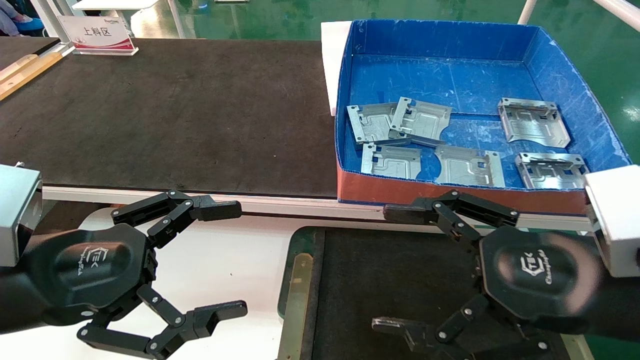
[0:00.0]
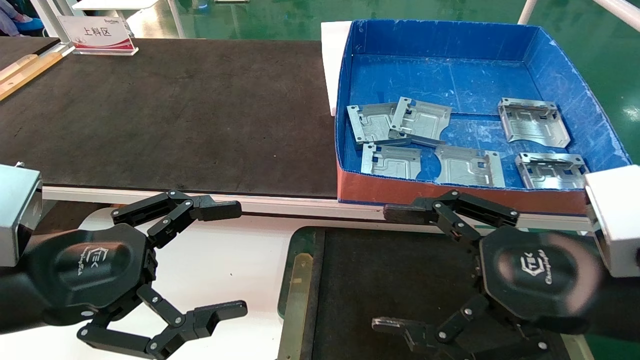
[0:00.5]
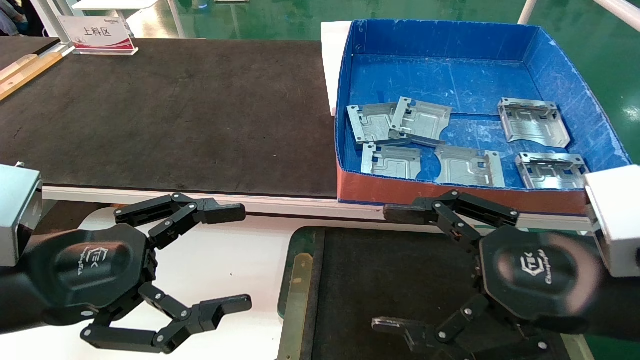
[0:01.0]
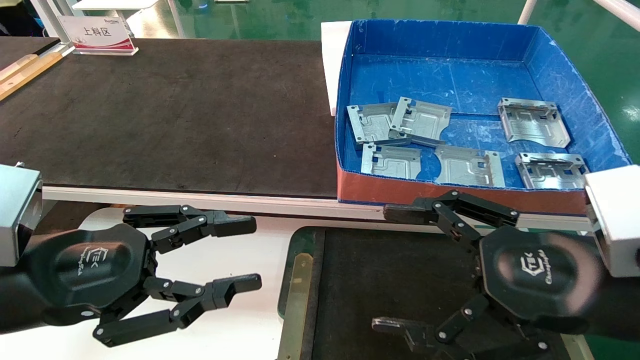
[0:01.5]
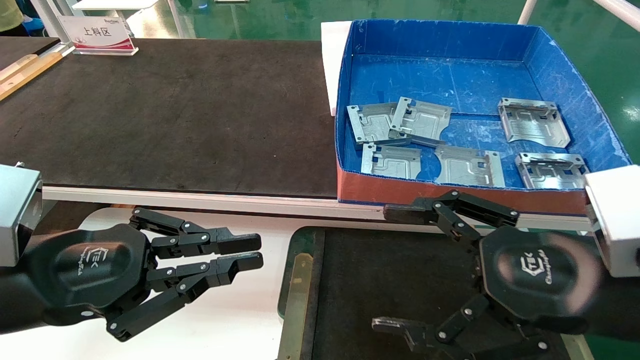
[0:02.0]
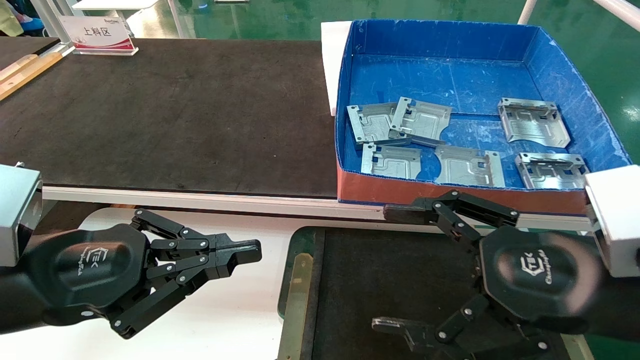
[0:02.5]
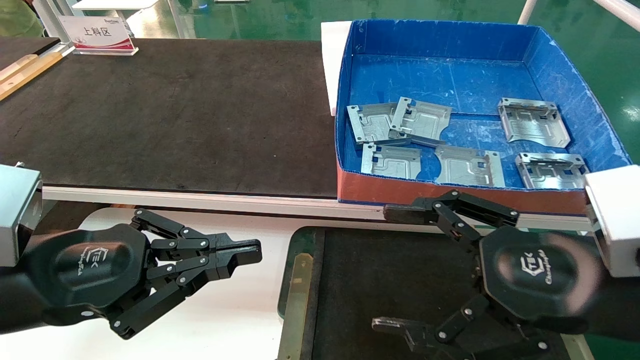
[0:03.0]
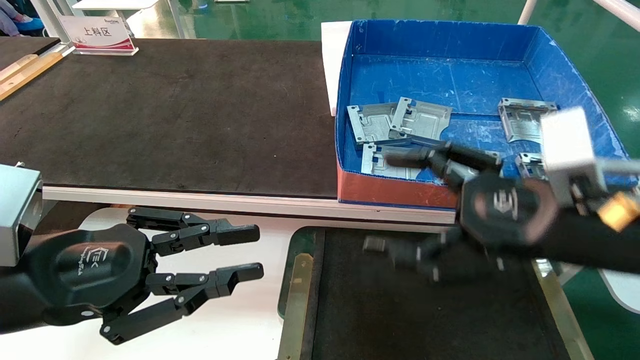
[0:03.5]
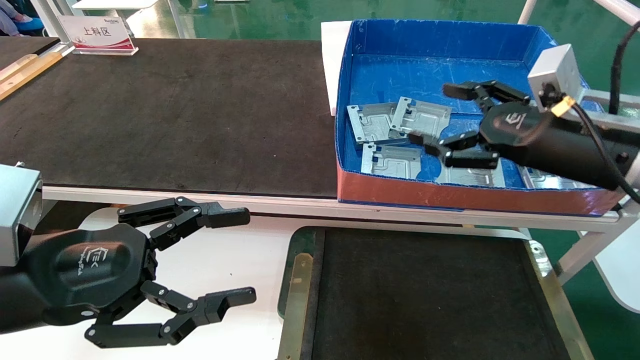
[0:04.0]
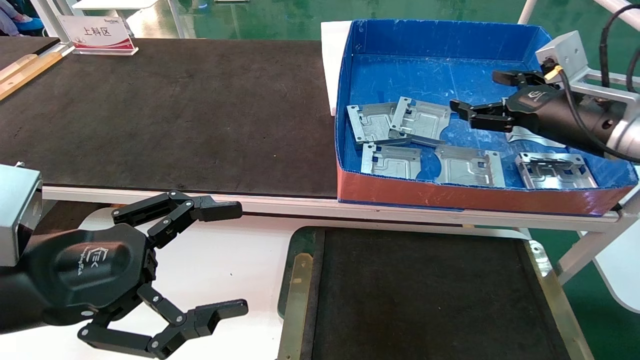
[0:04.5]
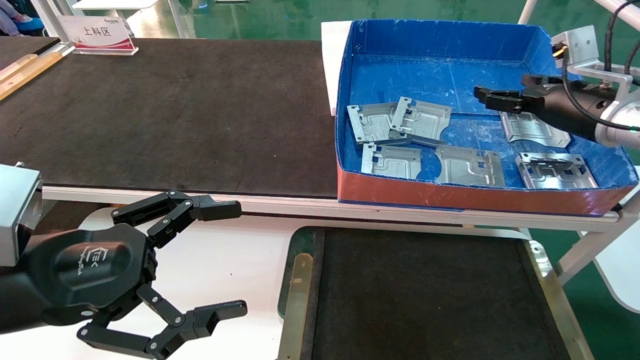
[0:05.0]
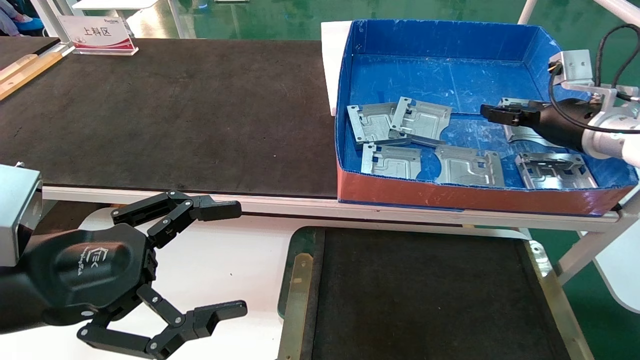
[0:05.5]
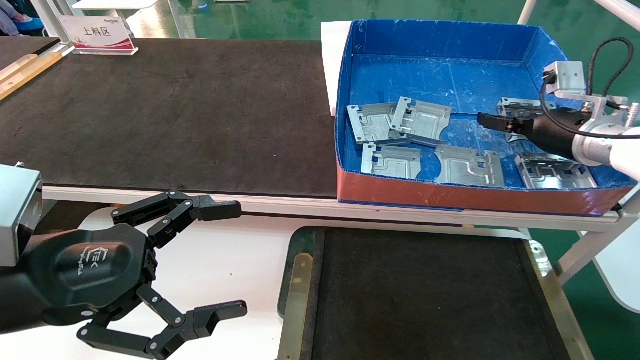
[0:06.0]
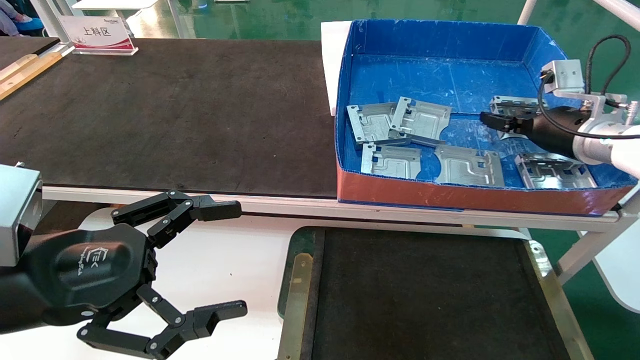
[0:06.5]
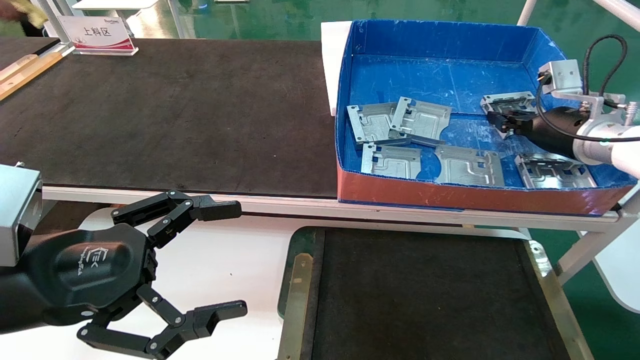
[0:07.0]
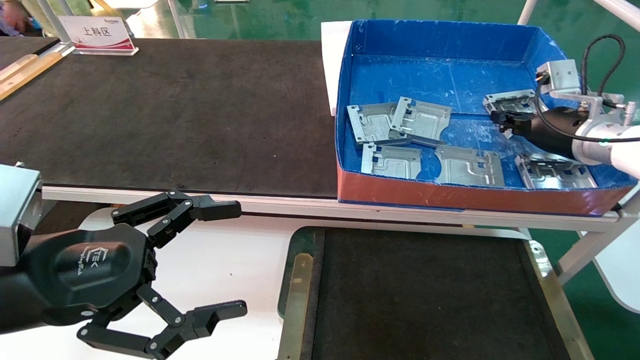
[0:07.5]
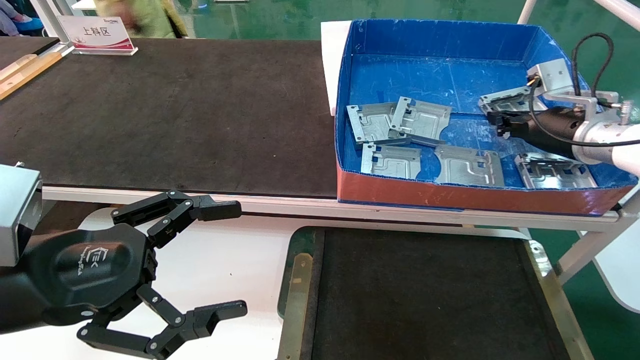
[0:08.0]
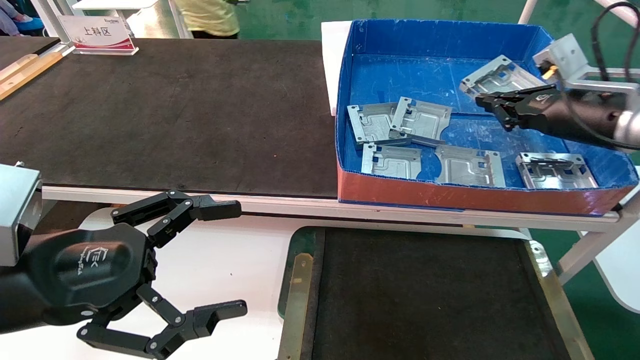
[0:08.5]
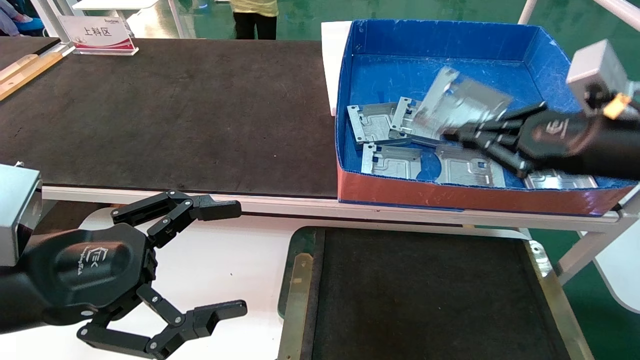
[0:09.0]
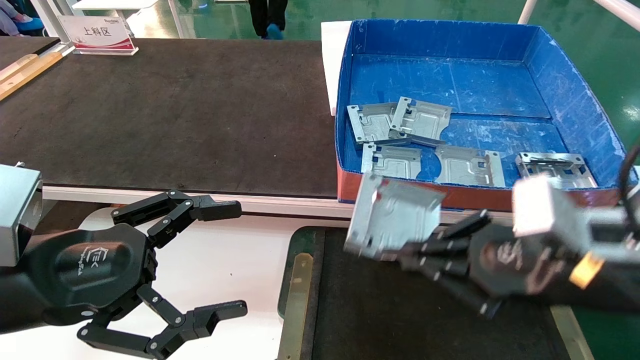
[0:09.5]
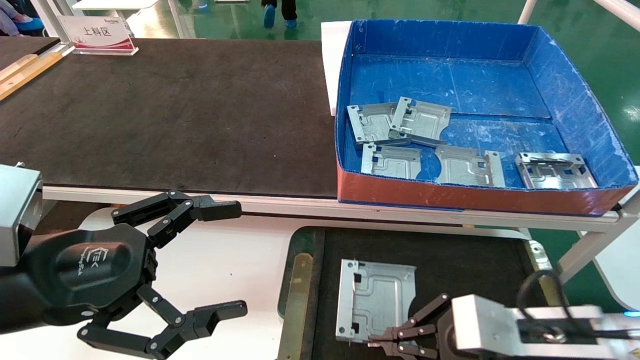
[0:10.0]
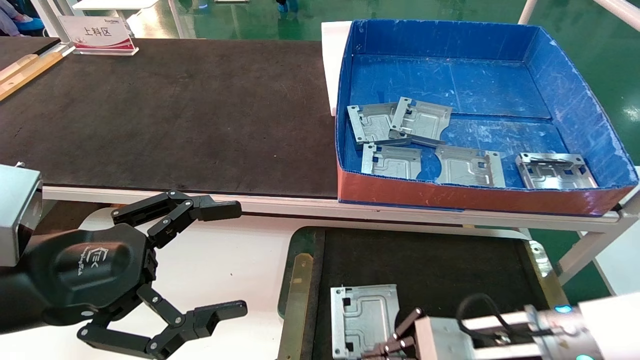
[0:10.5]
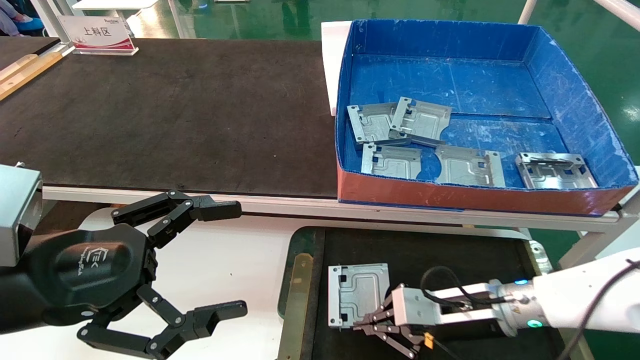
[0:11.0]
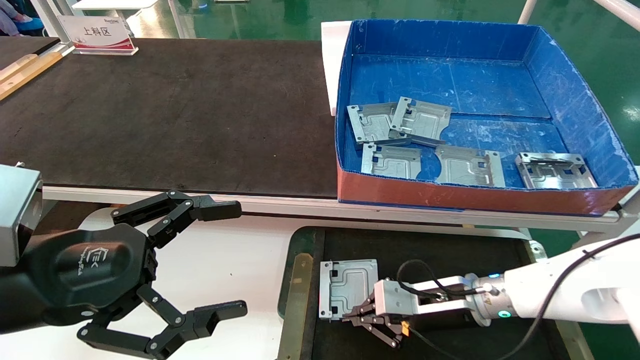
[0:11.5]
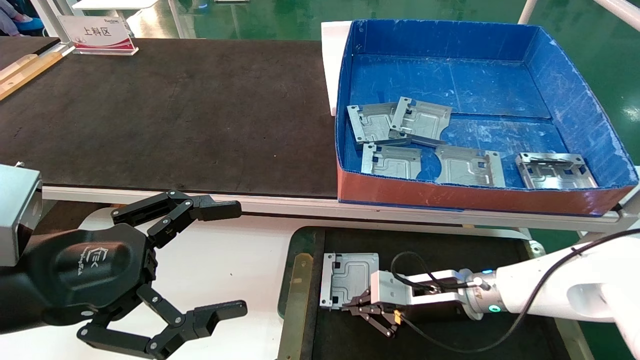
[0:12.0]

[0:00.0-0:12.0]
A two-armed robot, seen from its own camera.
Task of the whole recording: pick up parts and place them into a black container.
Step, 0:04.0 to 0:07.5: Pick up the hard drive bracket from the feeding area.
0:00.0 to 0:02.0: The left gripper closes up.
0:02.0 to 0:04.0: The left gripper opens. The right gripper is displaced forward and upward by approximately 15 cm.
0:04.0 to 0:06.0: The right gripper goes some 15 cm forward and to the right. Meanwhile the left gripper opens its fingers.
0:06.0 to 0:08.0: The right gripper closes its fingers.
0:08.0 to 0:10.0: The right gripper heads backward, downward and to the left, covering about 30 cm.
0:10.0 to 0:12.0: The right gripper heads forward and downward, covering approximately 15 cm.

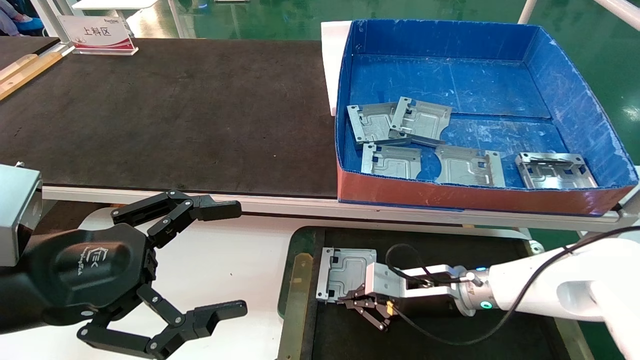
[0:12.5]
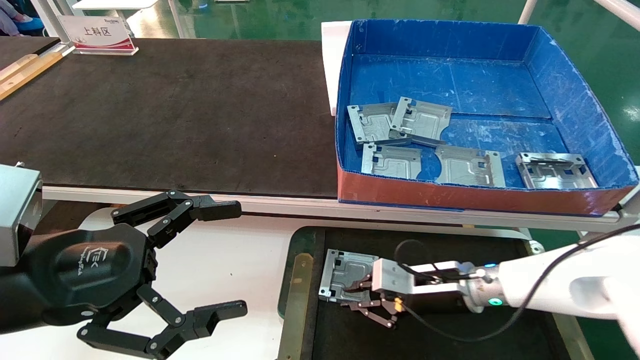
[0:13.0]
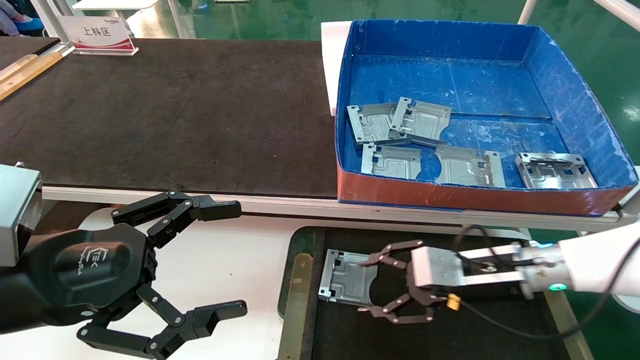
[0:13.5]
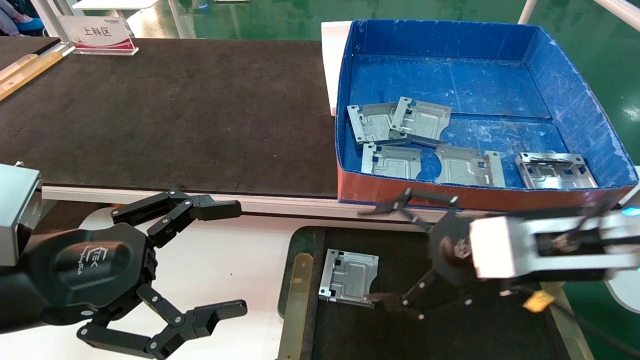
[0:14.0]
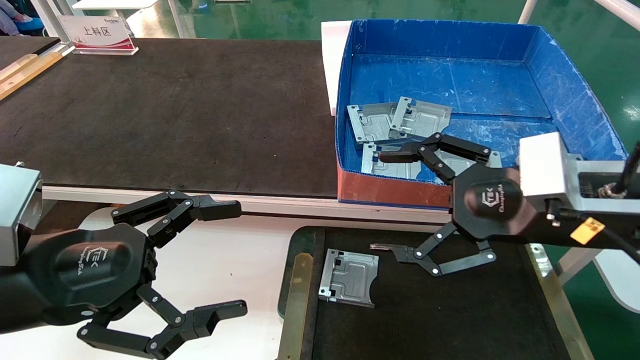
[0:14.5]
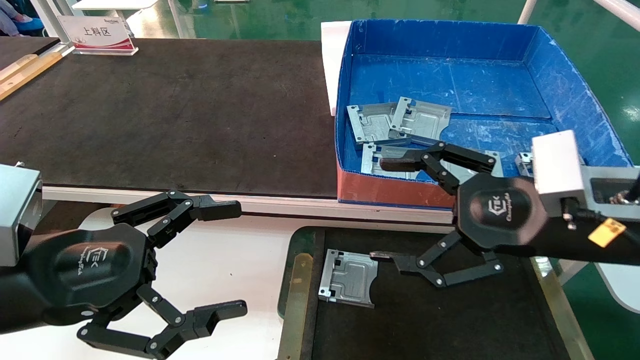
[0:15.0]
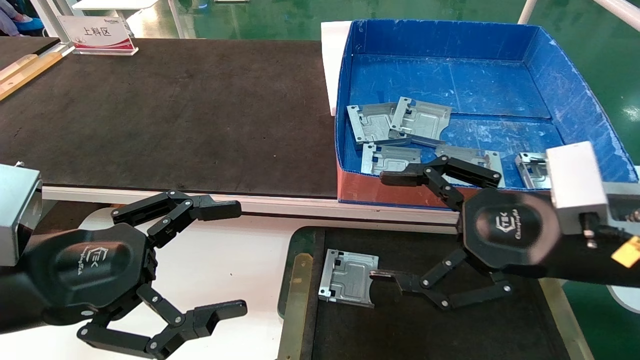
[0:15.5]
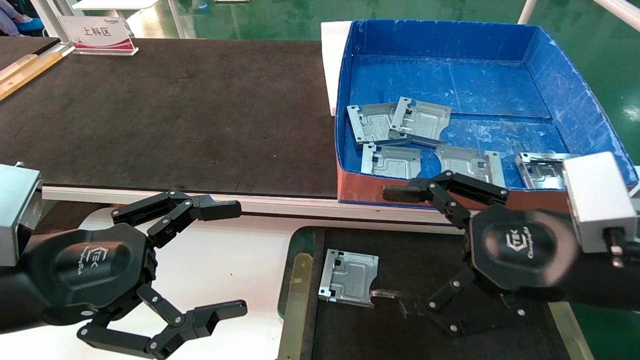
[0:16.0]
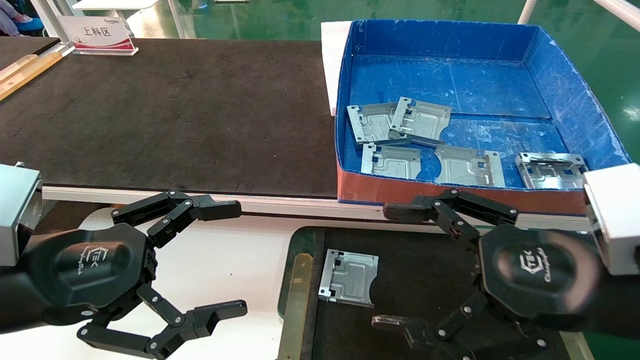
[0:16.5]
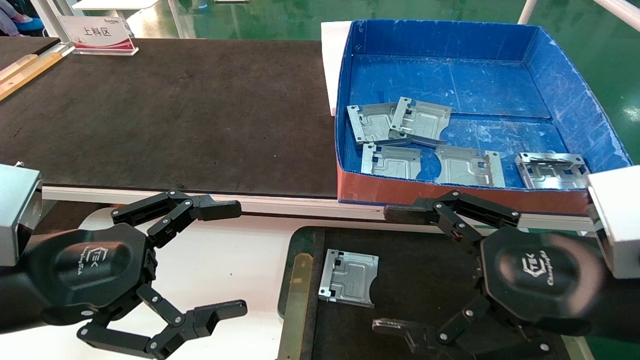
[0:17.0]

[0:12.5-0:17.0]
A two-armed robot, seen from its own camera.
Task of the whole recording: pick up parts and place them into a black container.
0:12.5 to 0:14.5: The right gripper shifts roughly 25 cm upward and backward, and opens its fingers.
0:14.5 to 0:17.0: The right gripper is displaced backward by roughly 10 cm.
